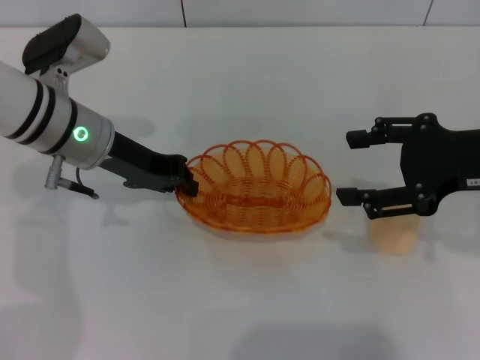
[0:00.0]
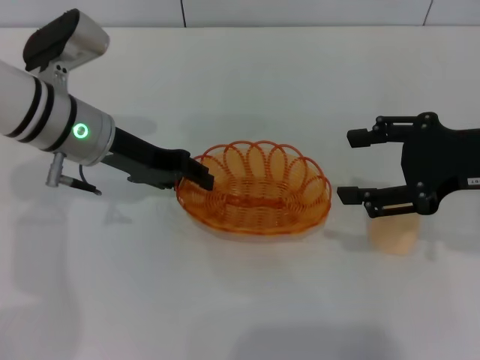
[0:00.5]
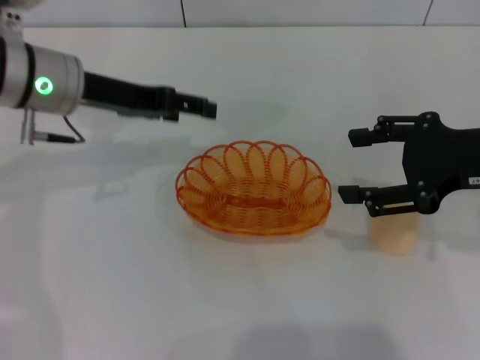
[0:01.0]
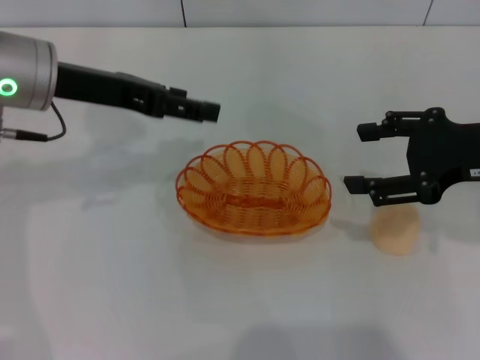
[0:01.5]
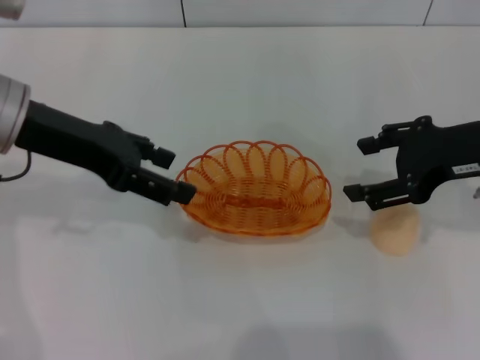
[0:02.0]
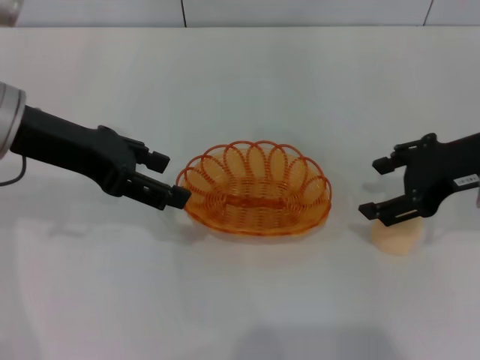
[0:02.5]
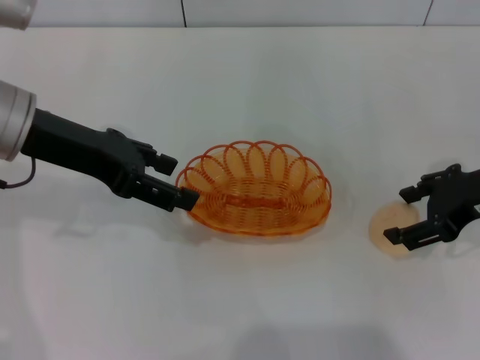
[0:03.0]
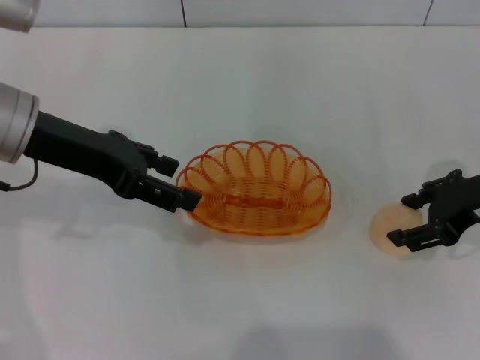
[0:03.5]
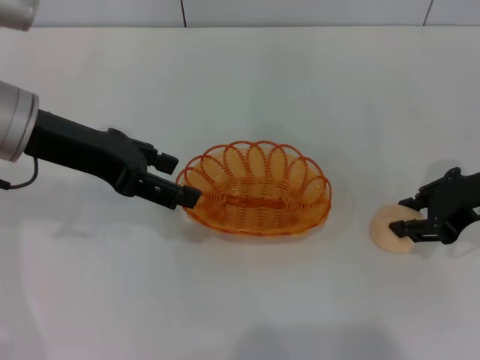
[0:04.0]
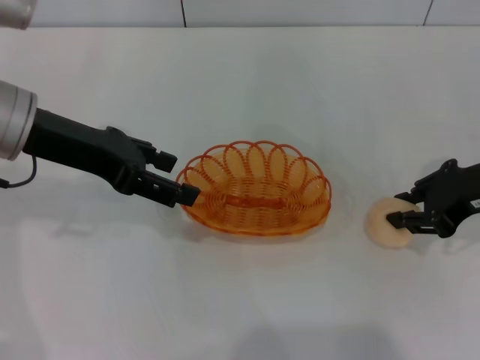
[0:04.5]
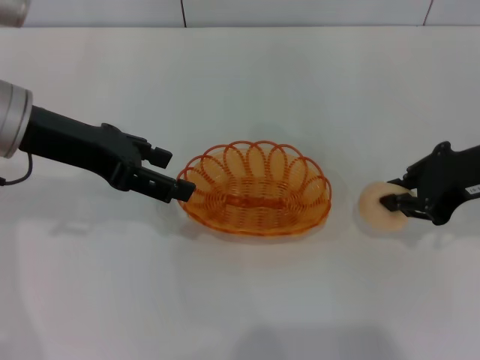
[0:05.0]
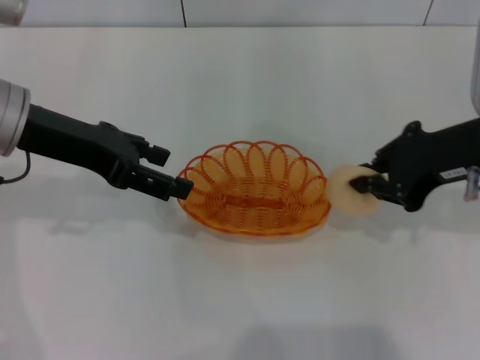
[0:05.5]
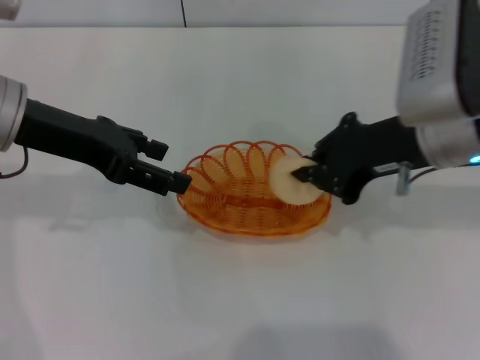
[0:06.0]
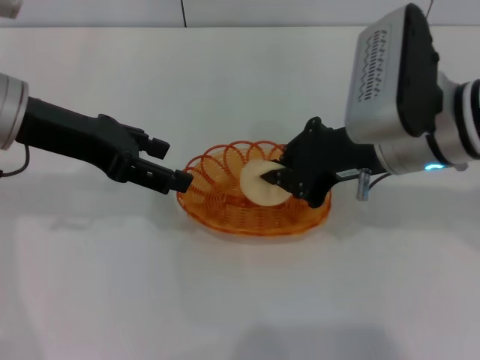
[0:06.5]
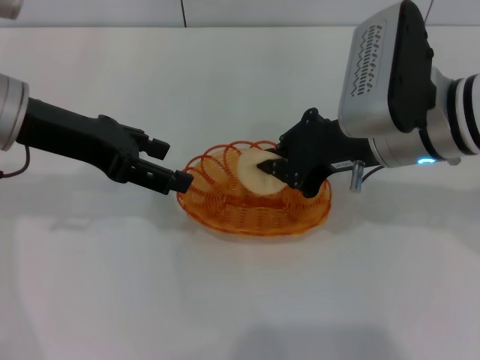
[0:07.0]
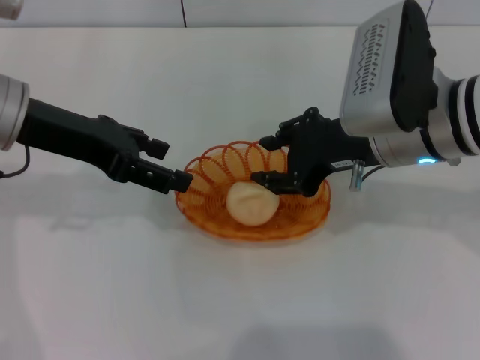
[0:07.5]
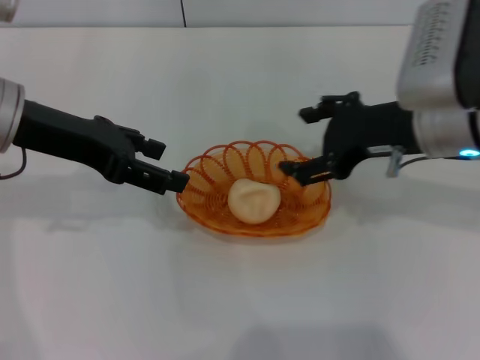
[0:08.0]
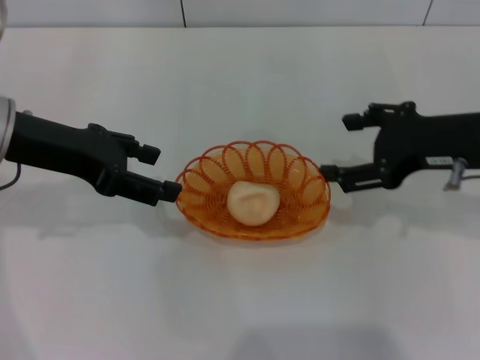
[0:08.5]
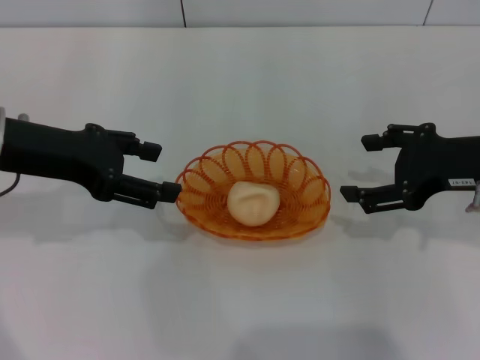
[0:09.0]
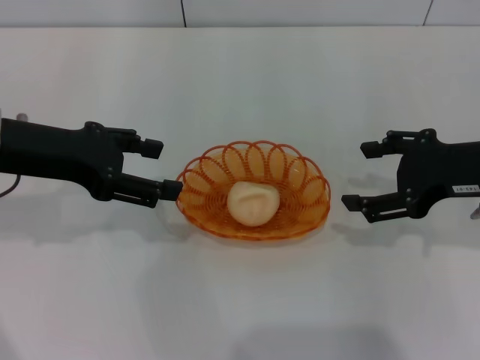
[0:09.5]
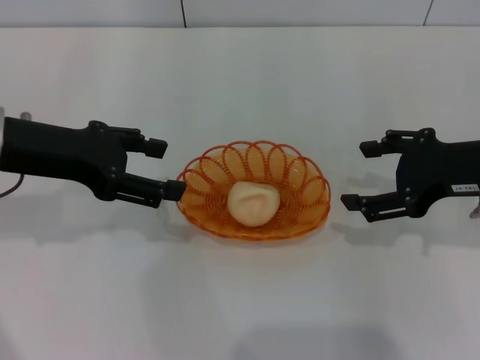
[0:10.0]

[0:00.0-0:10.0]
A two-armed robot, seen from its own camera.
Step, 0:02.0 to 0:05.0: Pick up the egg yolk pastry with the right gripper.
Step, 0:06.0 to 0:07.5: Place the egg yolk pastry into the basket with the right gripper.
0:00.0 to 0:02.0: The left gripper shifts approximately 10 cm upward, and opens.
0:02.0 to 0:04.0: The right gripper closes its fingers.
0:04.0 to 0:06.0: The right gripper moves to the left, roughly 10 cm, and closes up.
0:06.0 to 0:08.0: The right gripper opens its fingers.
0:08.0 to 0:10.0: The right gripper heads to the right, covering about 10 cm.
